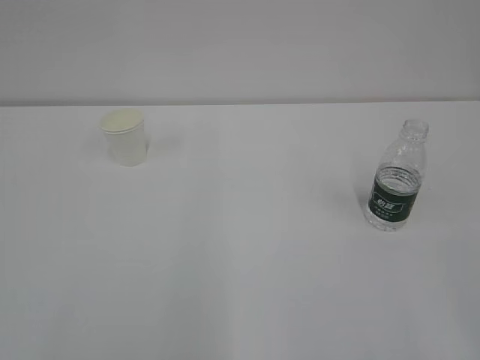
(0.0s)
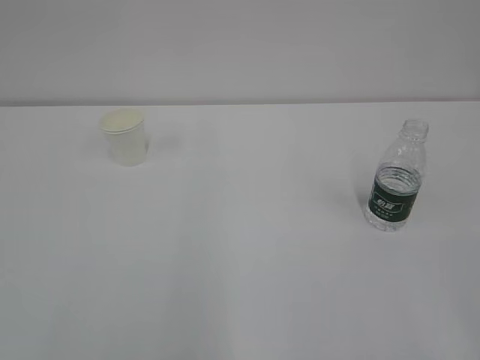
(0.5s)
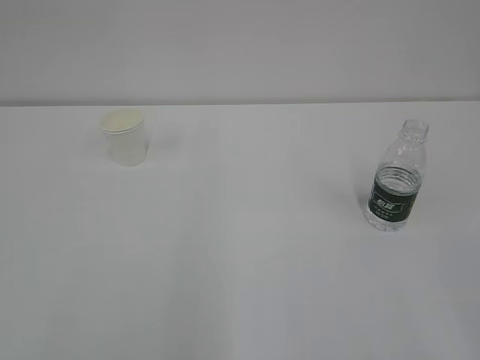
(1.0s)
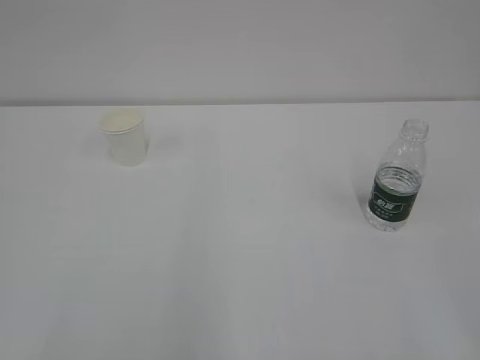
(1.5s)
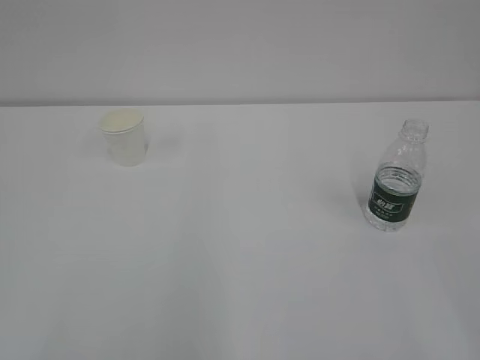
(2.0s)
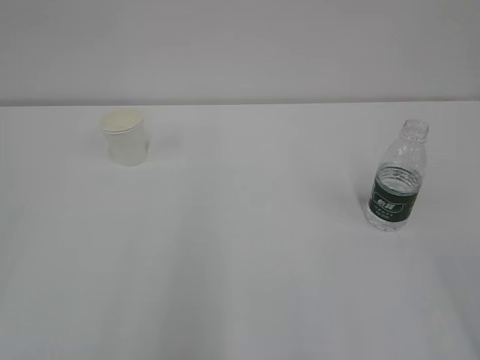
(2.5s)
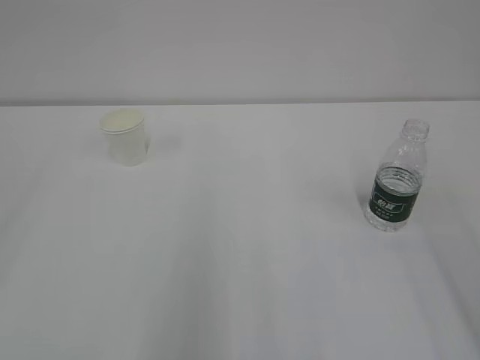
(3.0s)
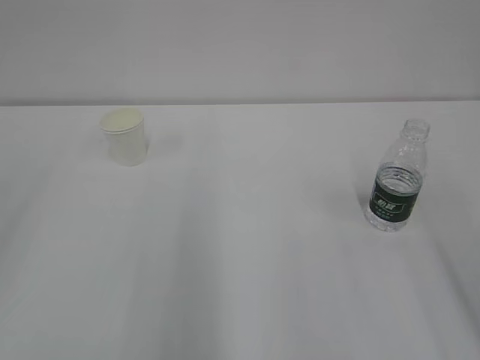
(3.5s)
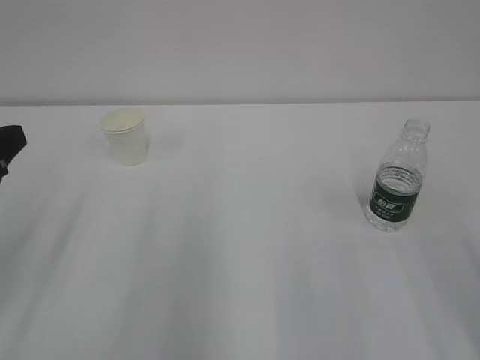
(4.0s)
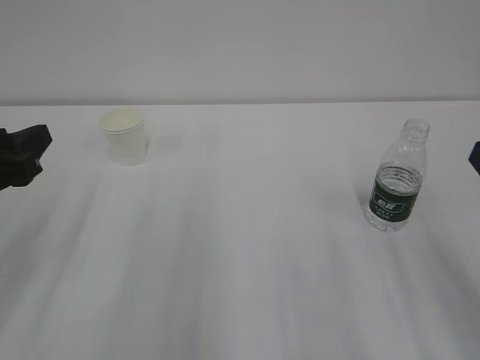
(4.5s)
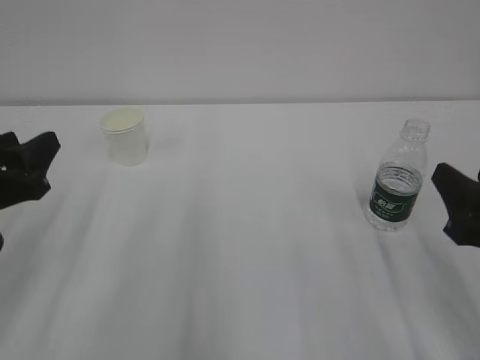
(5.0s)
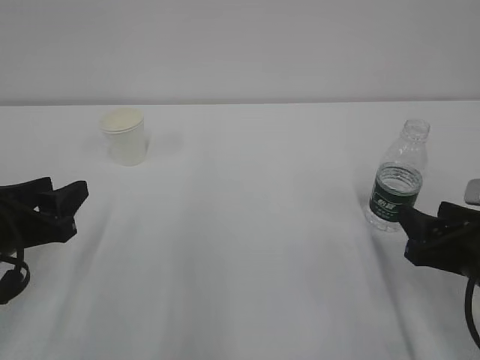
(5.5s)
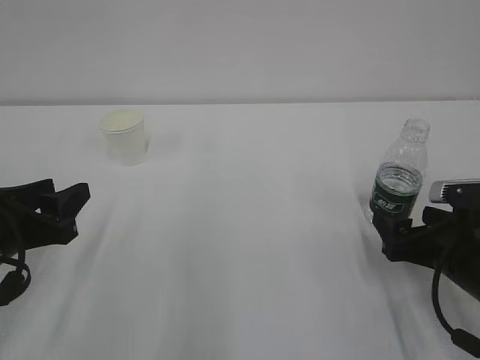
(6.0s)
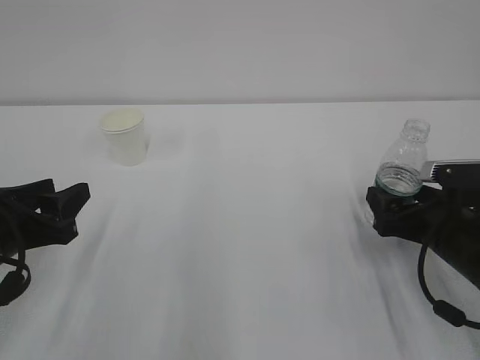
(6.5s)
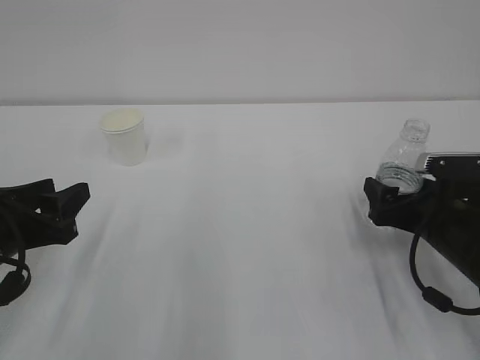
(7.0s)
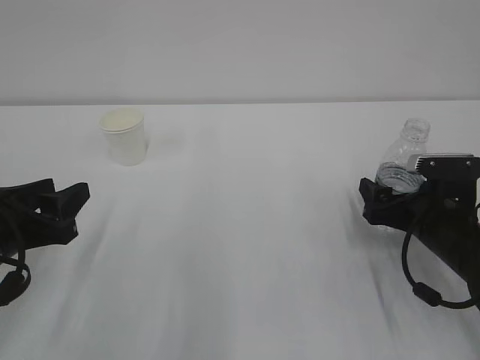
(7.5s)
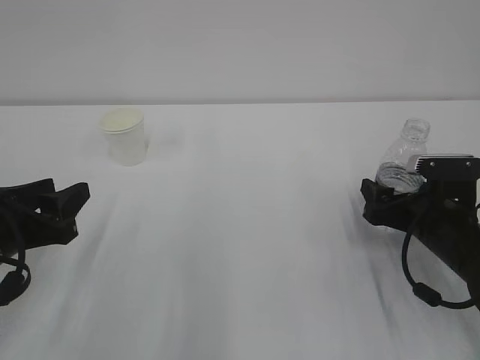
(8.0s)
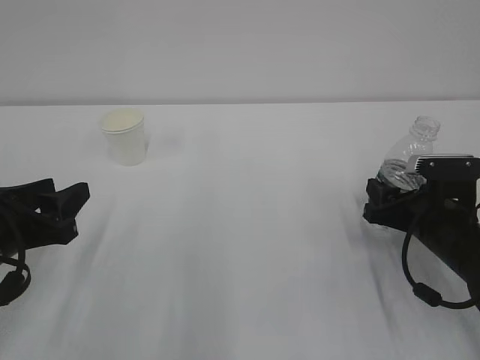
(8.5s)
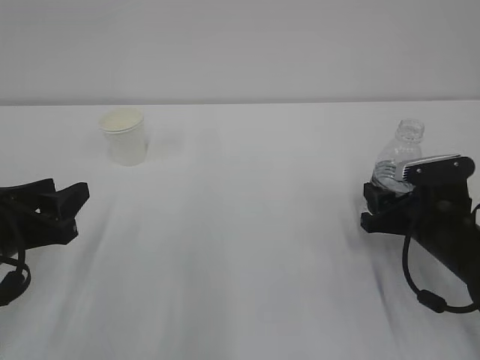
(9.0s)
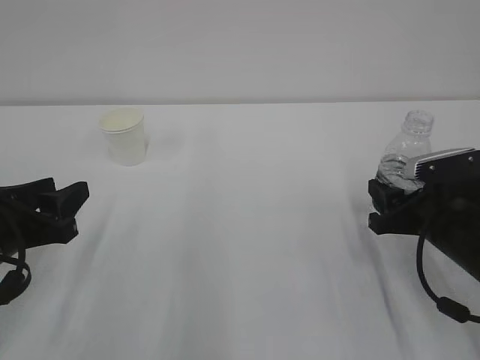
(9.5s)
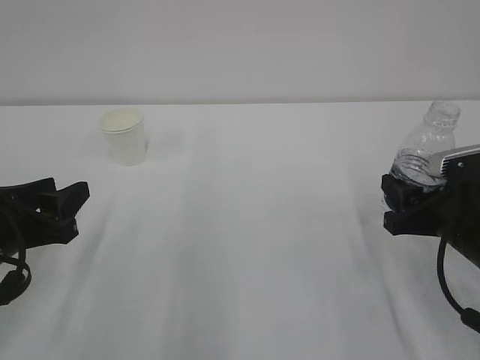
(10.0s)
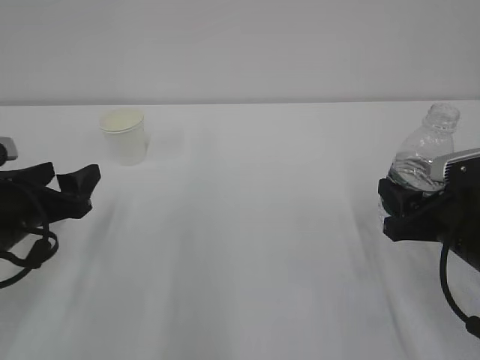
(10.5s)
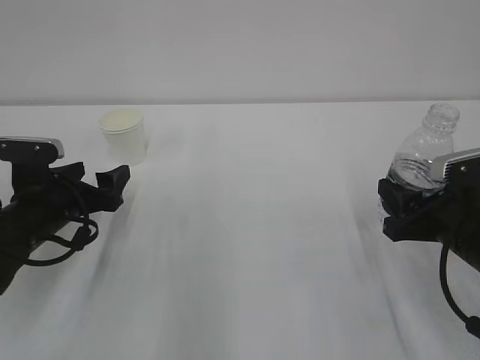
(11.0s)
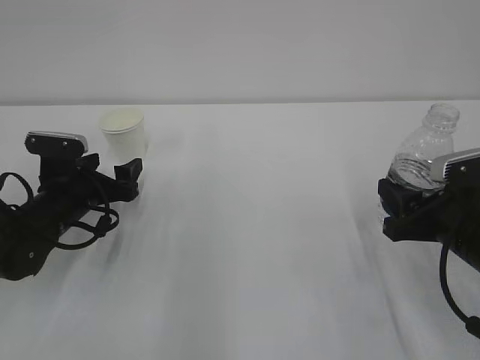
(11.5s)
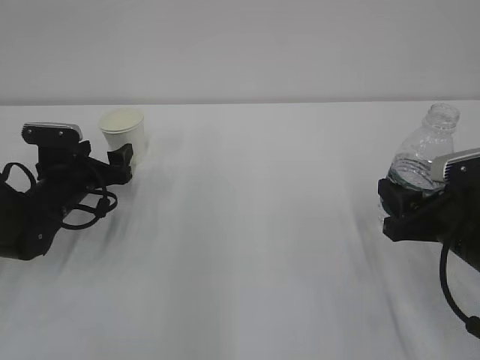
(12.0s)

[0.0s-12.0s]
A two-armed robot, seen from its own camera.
2.0s to 4.0s: The left gripper travels forward by approximately 20 cm.
4.0s to 6.0s: The left gripper travels downward by approximately 10 cm. Meanwhile the right gripper heads downward and forward, covering some 20 cm, and opens its fingers.
6.0s to 8.0s: The right gripper heads forward, covering roughly 5 cm.
8.0s to 10.0s: The right gripper shifts by about 5 cm, and closes up.
10.0s to 12.0s: The left gripper moves forward and downward, approximately 15 cm, and opens up.

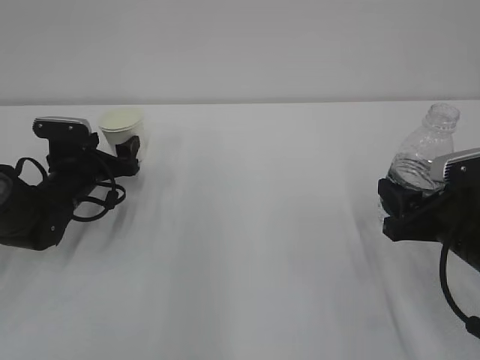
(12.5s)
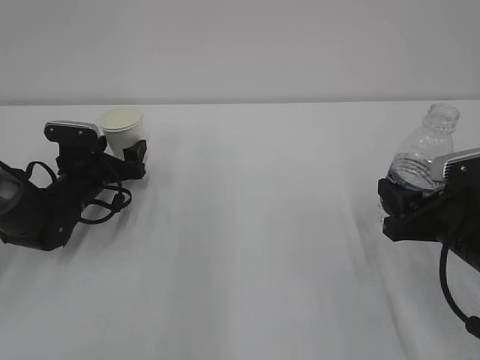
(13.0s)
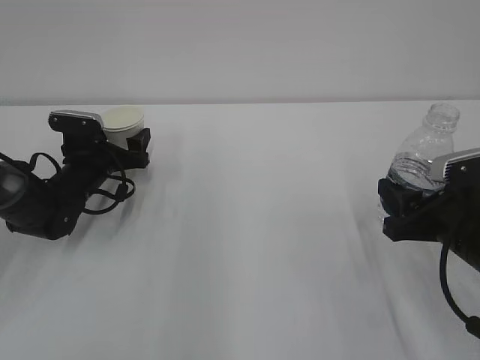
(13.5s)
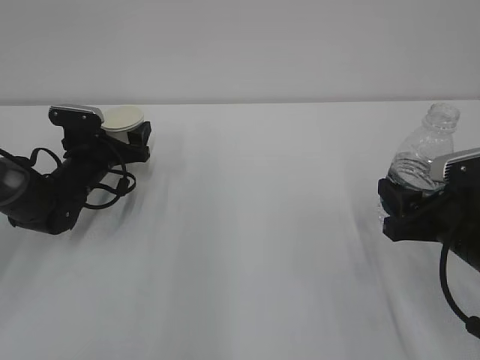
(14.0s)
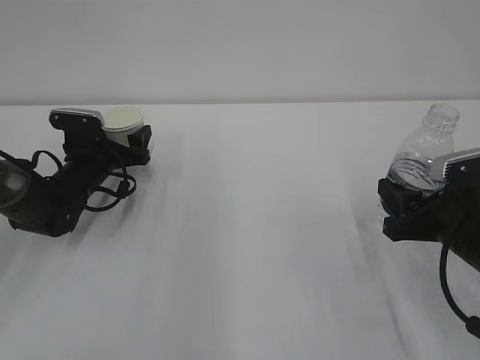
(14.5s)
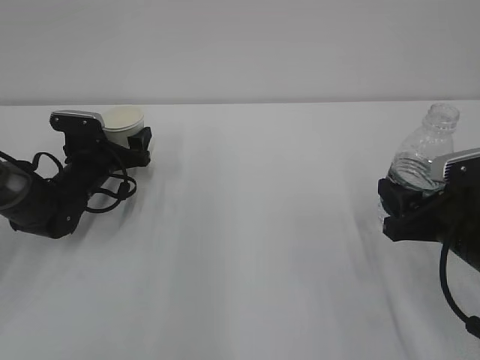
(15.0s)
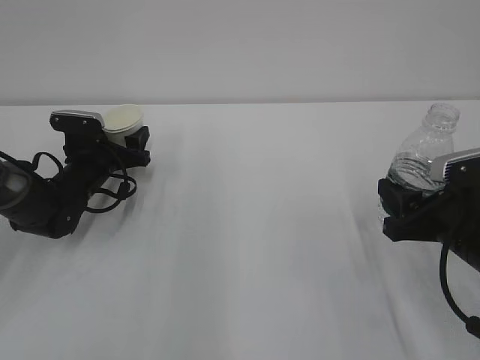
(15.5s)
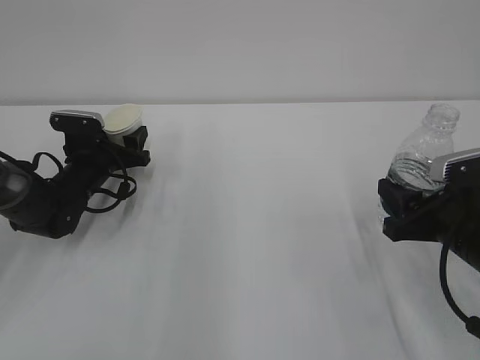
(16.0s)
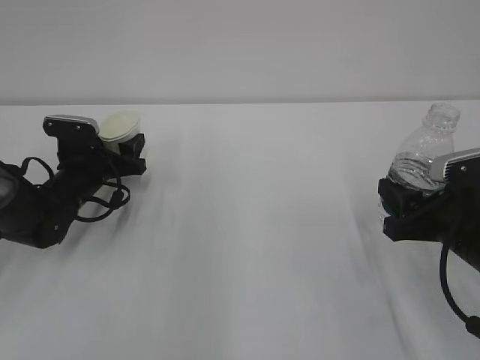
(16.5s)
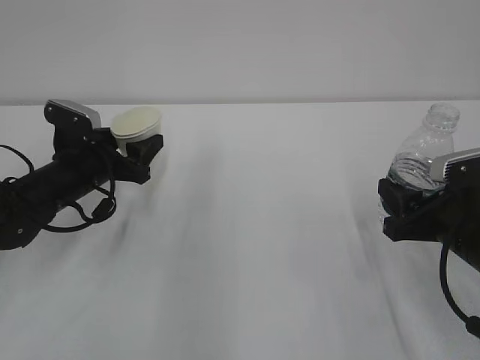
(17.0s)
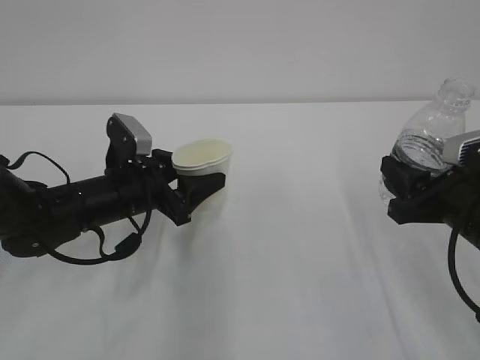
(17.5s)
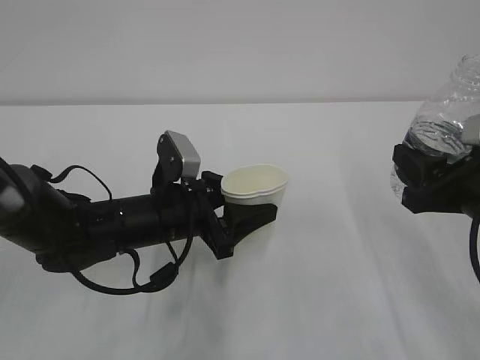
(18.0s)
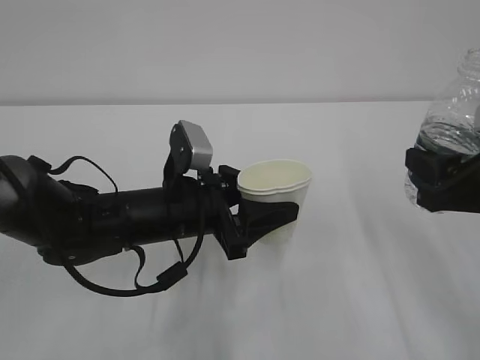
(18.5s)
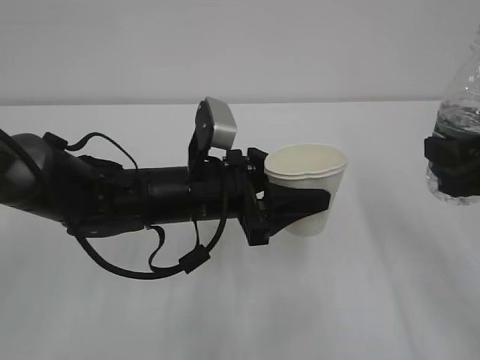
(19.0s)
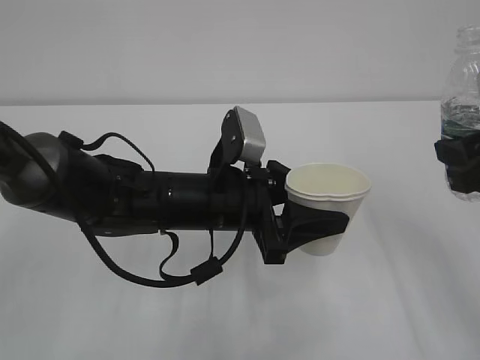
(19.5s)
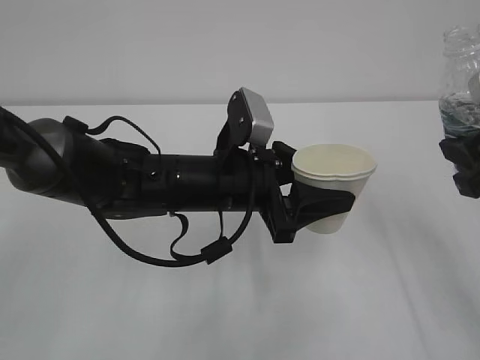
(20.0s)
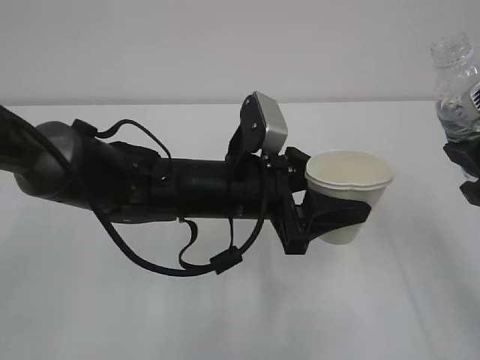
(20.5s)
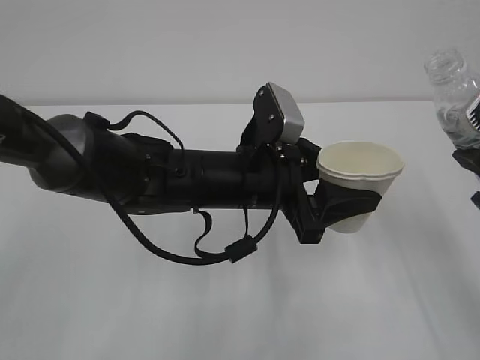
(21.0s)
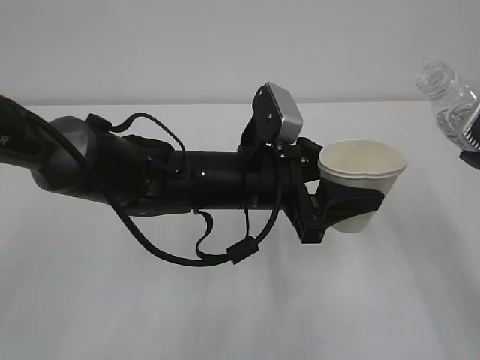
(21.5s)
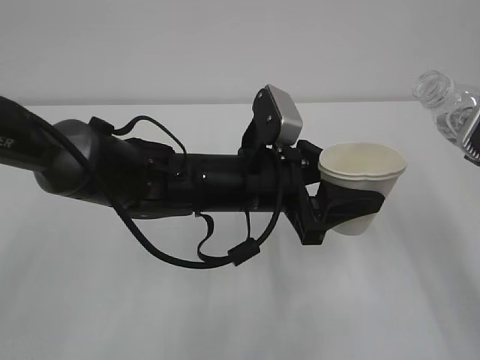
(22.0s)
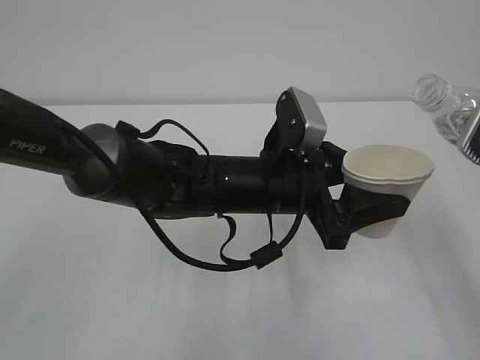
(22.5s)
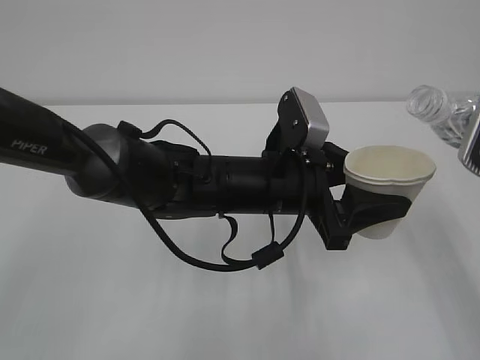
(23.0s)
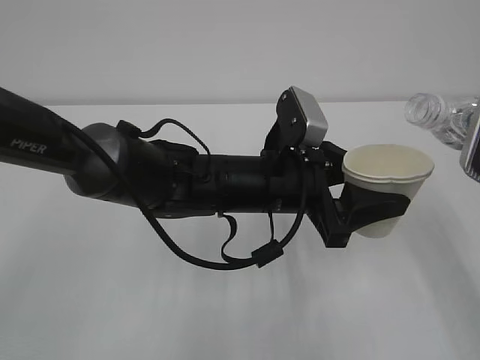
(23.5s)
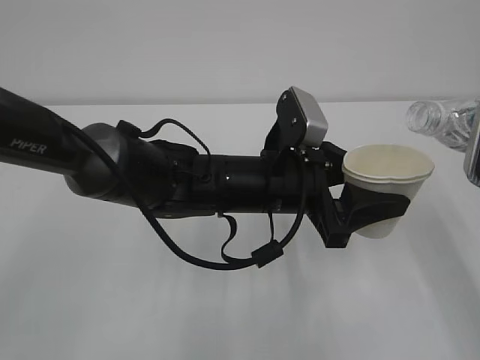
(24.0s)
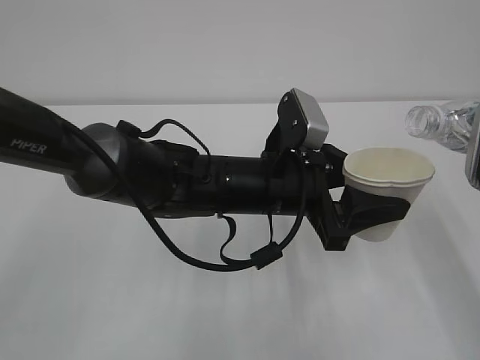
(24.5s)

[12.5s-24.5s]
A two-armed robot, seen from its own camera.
12.5s to 14.5s: There are only small adjustments of the grippers.
14.5s to 16.5s: The left gripper closes its fingers.
16.5s to 18.5s: The left gripper heads to the right, backward and upward, covering some 20 cm; the right gripper is displaced upward by some 10 cm.
18.5s to 20.5s: The left gripper moves to the right, about 5 cm, while the right gripper shifts about 5 cm upward.

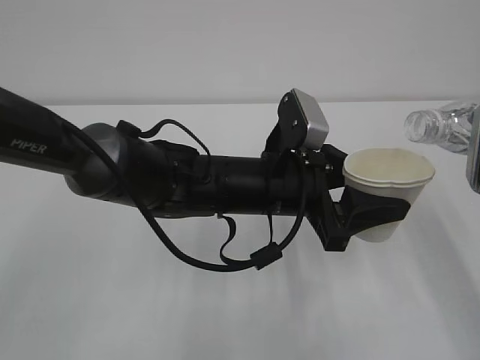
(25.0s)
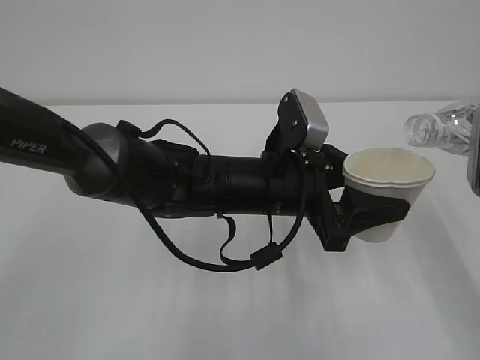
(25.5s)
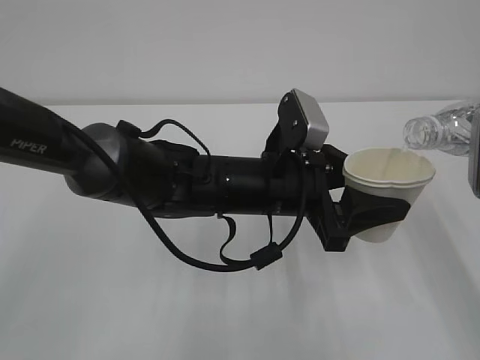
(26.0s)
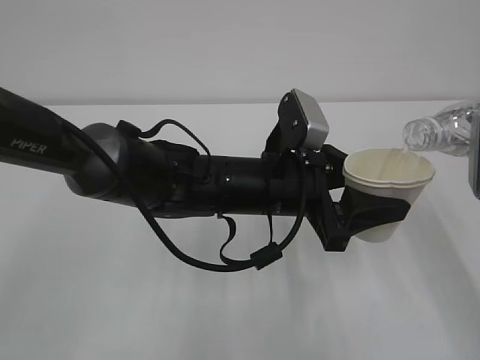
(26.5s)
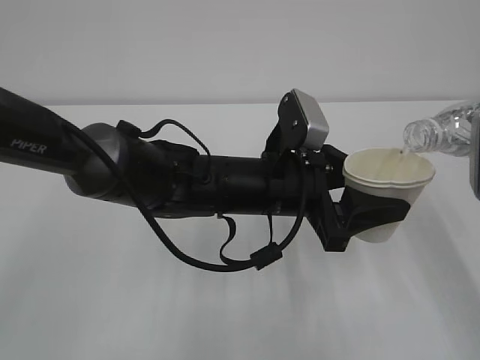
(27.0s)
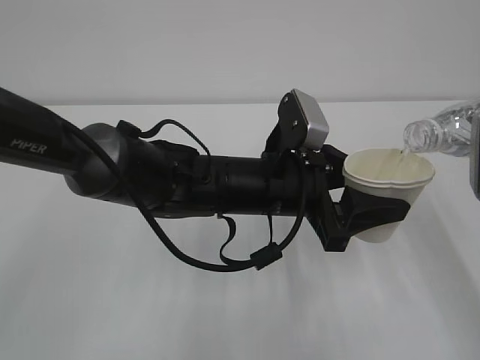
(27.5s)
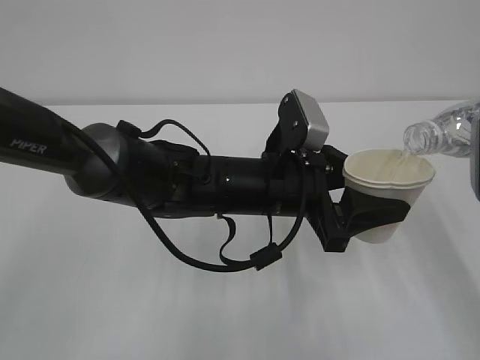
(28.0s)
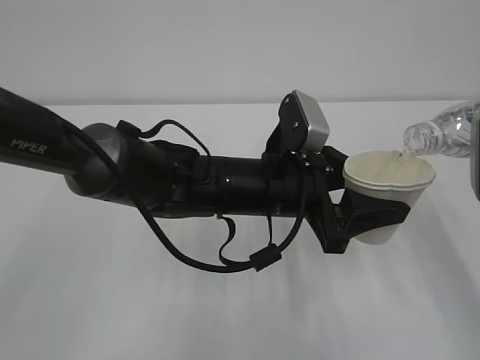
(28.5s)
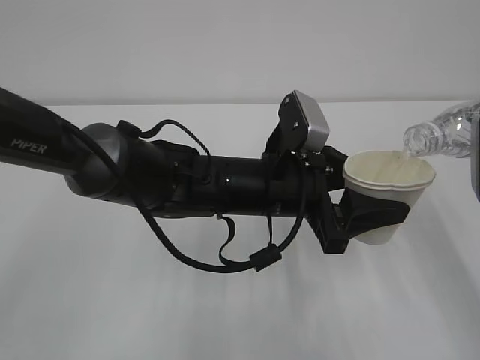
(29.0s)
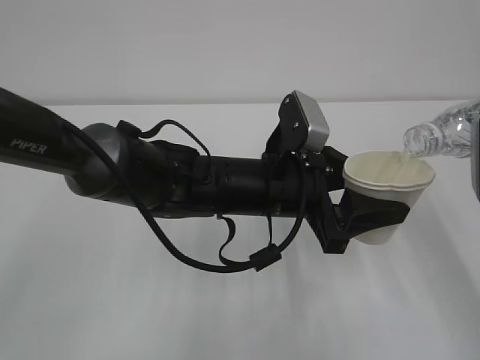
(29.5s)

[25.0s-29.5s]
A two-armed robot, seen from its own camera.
27.0s to 29.5s: Both grippers stay put.
